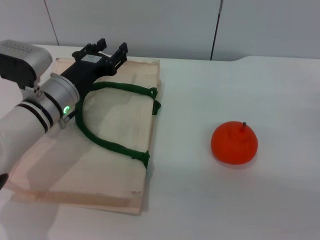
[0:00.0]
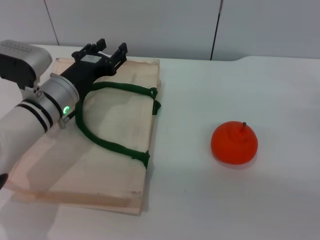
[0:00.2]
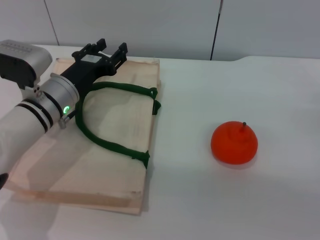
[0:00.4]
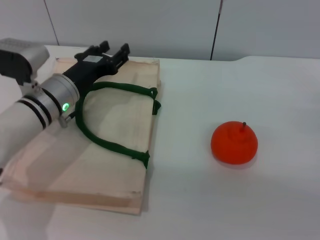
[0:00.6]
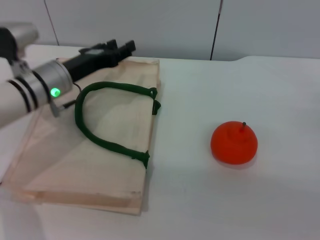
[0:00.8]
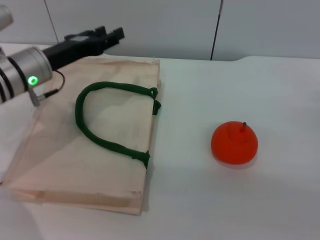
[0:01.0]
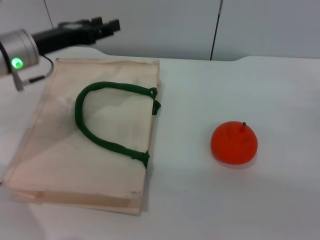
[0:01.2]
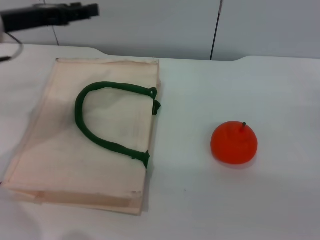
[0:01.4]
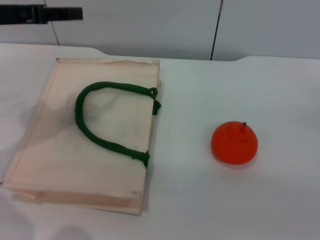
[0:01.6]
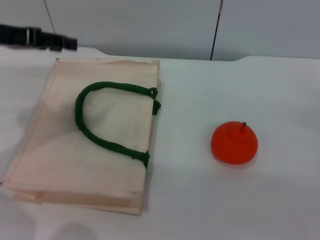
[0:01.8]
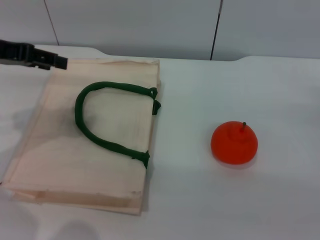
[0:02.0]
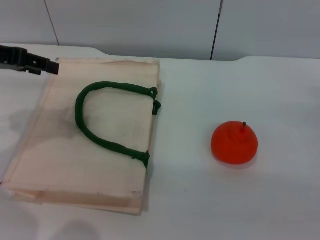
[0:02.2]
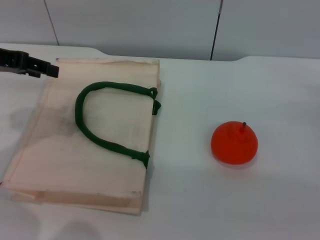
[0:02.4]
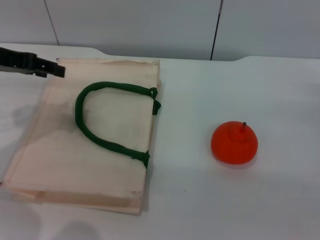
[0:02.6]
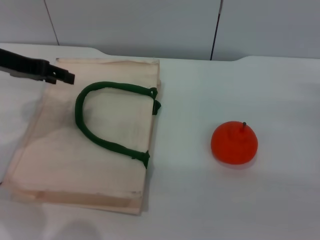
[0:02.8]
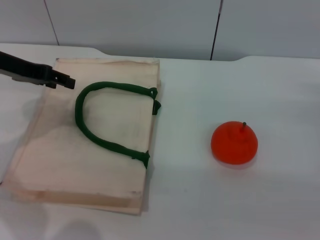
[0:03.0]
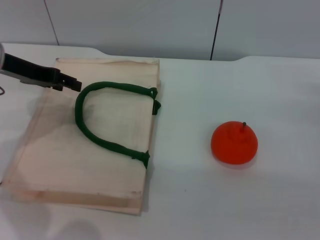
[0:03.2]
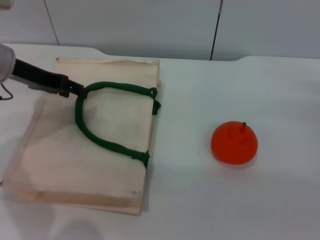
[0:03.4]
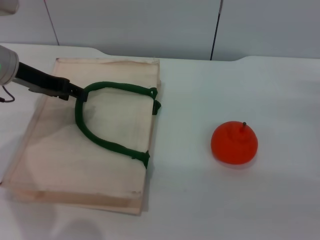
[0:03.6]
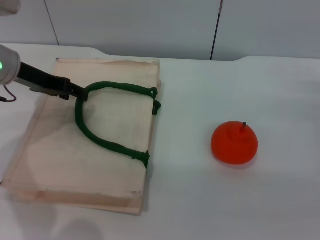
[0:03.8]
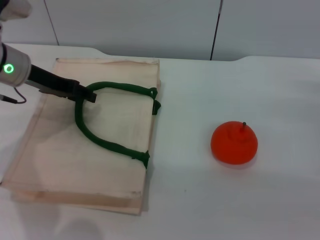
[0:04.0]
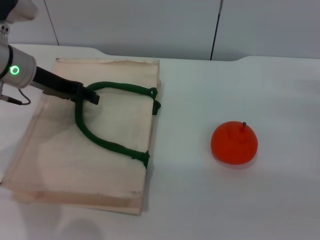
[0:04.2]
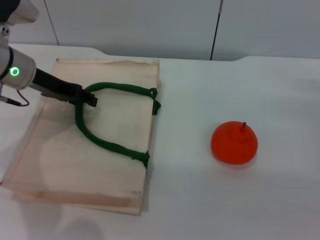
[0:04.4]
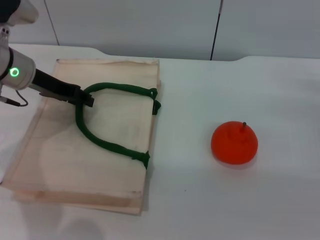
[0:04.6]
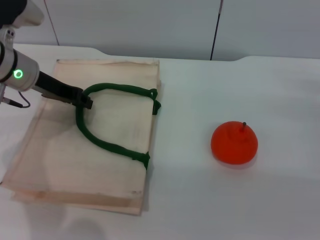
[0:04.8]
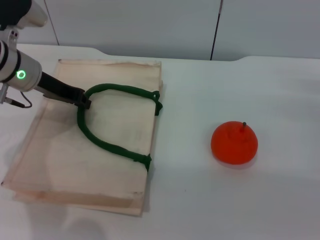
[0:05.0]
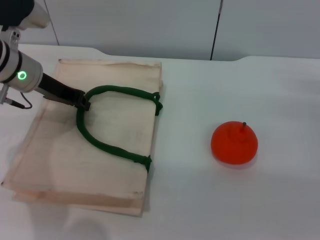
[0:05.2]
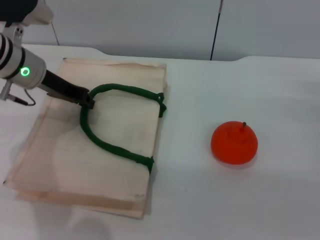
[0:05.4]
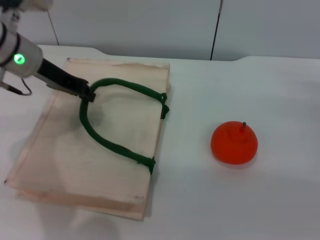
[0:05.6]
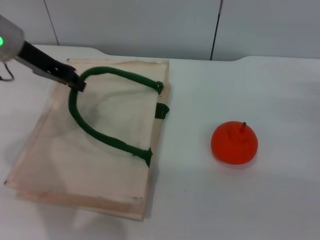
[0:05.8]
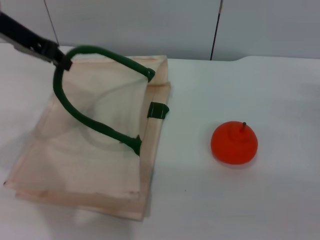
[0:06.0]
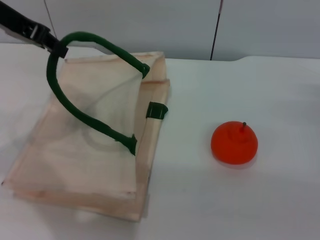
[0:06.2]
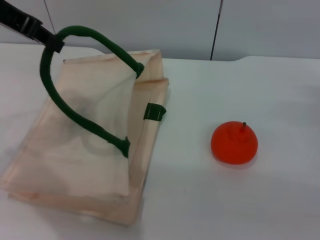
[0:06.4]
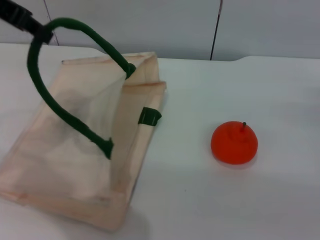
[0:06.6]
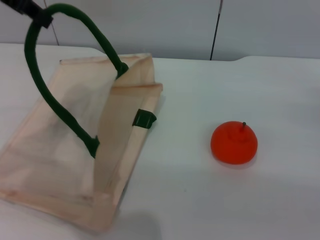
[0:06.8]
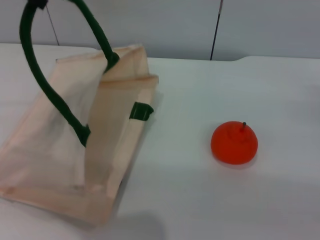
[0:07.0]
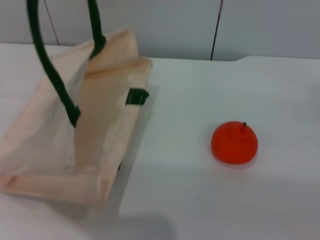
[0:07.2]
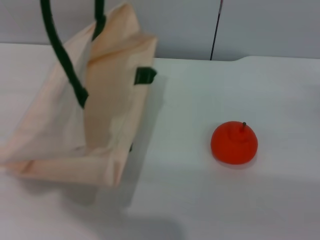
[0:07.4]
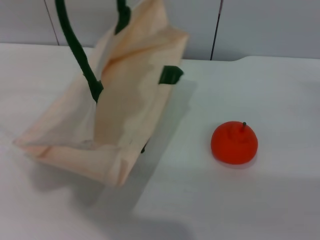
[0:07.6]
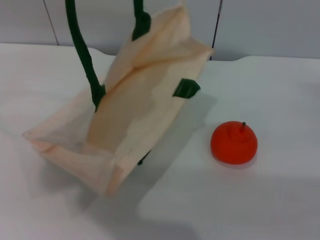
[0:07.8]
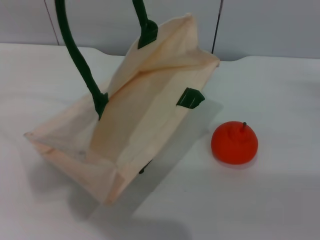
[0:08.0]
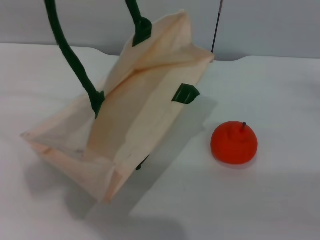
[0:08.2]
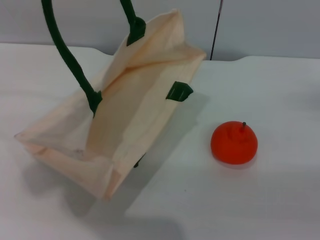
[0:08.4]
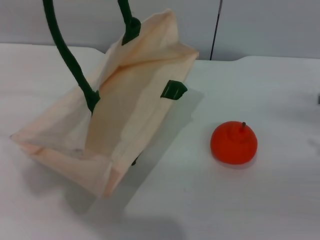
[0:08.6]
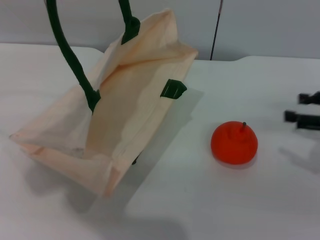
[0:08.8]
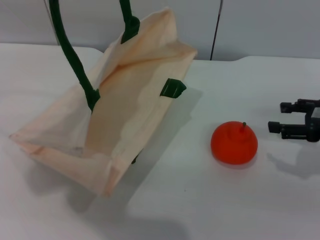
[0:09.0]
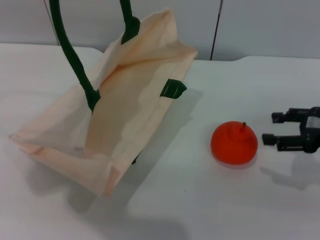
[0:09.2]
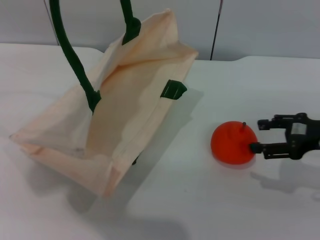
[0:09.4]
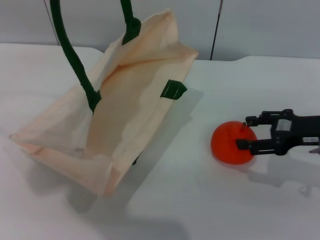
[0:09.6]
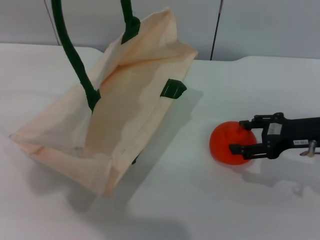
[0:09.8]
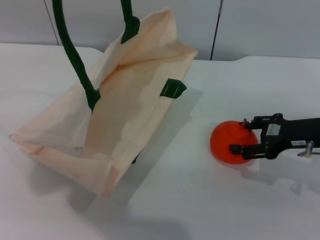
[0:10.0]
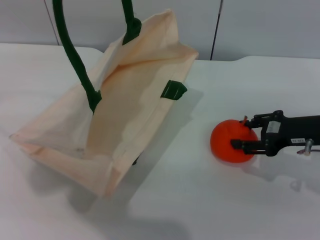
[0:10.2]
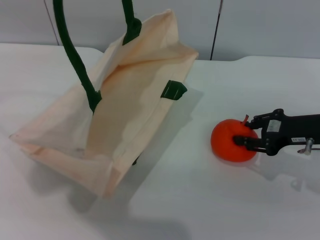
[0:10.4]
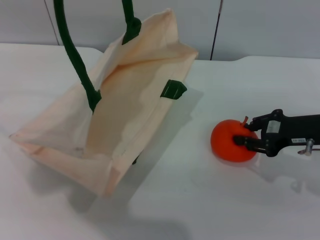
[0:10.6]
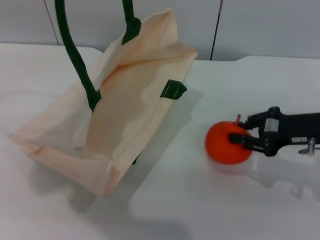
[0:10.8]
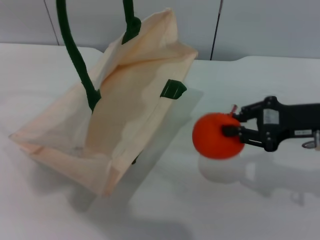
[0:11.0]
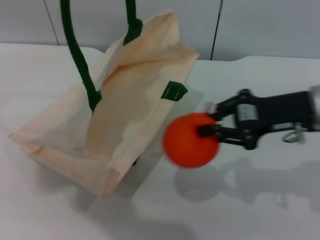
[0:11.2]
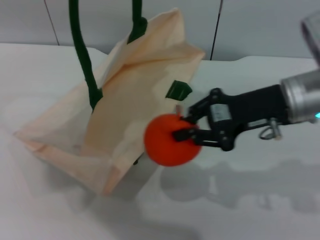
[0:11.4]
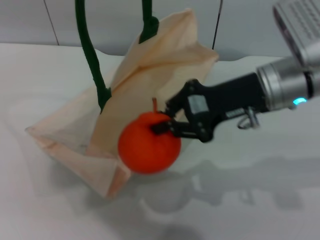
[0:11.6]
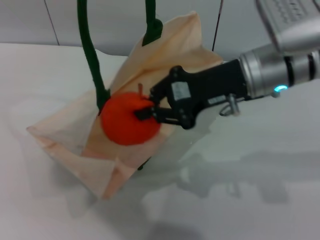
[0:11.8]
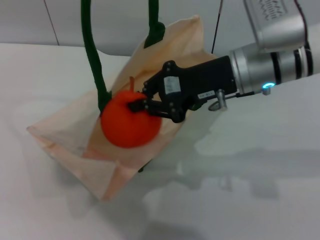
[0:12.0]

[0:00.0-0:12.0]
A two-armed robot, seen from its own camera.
Task of the whole recording: pick up the orange from the table and place it in the white handbag.
Step, 0:00.0 to 0:07.0: Lift the woven bag with the left gripper to open it.
Step, 0:07.2 to 0:11.0: Pick up the orange with the right gripper.
0:00.0 to 0:01.6: The left gripper shifts approximately 20 cm upward and to the left.
0:03.0 to 0:04.4: The left gripper shifts by roughly 5 cm.
0:04.4 to 0:06.0: The left gripper heads upward, covering approximately 10 cm, and closes its fingers.
0:06.0 to 0:07.6: The left gripper heads upward, covering some 15 cm.
0:07.6 to 0:09.0: The right gripper ends up about 5 cm from where it was.
0:09.0 to 0:10.4: The right gripper moves to the left, some 5 cm.
0:10.4 to 0:12.0: The right gripper shifts approximately 20 cm to the left and upward, and closes its fingers.

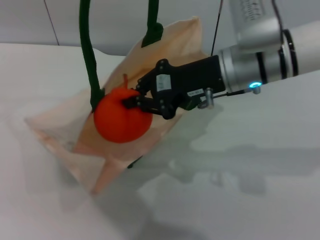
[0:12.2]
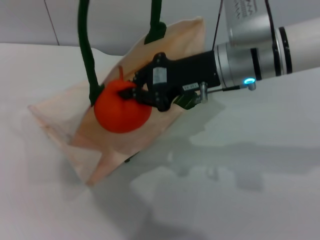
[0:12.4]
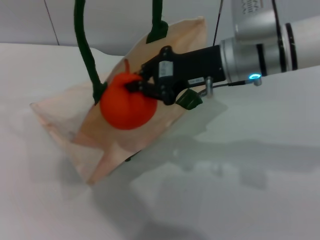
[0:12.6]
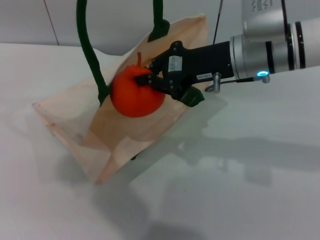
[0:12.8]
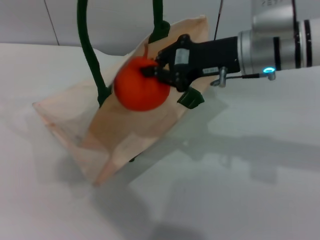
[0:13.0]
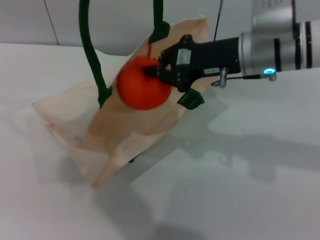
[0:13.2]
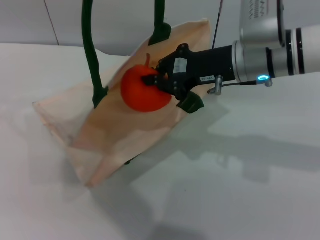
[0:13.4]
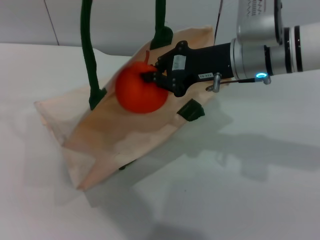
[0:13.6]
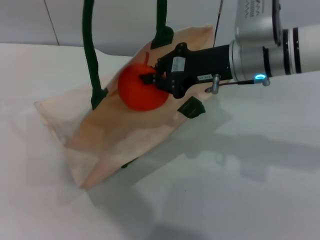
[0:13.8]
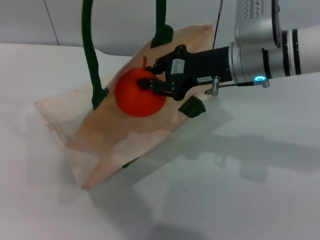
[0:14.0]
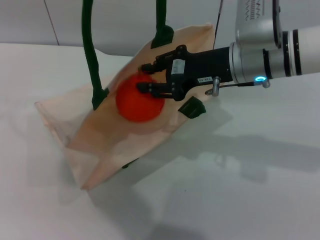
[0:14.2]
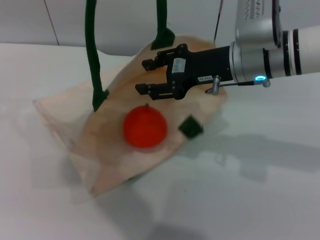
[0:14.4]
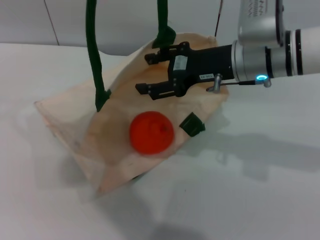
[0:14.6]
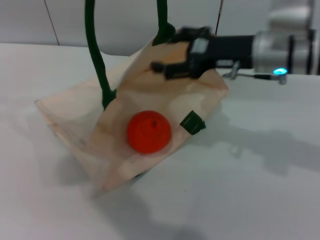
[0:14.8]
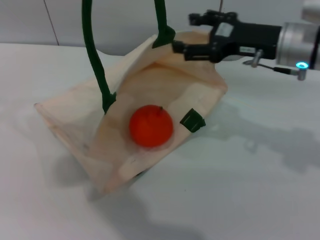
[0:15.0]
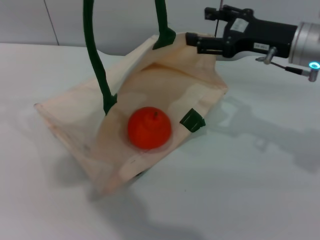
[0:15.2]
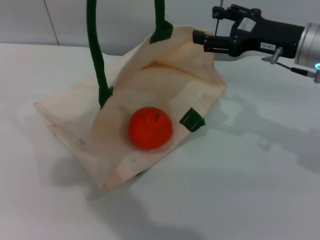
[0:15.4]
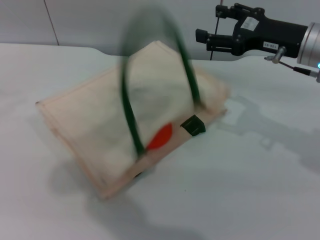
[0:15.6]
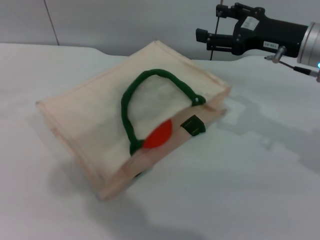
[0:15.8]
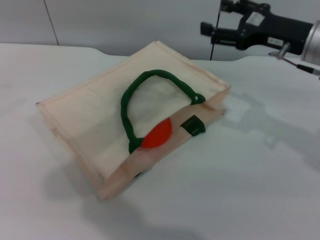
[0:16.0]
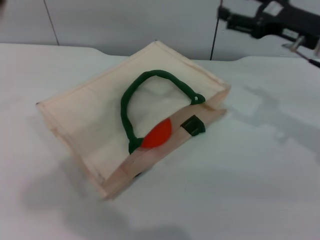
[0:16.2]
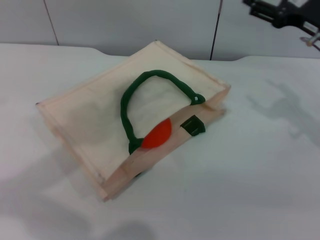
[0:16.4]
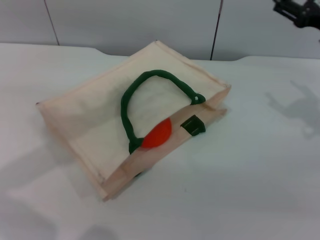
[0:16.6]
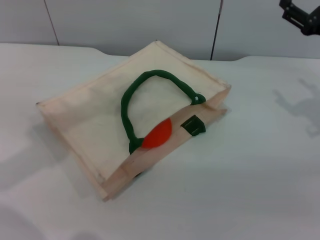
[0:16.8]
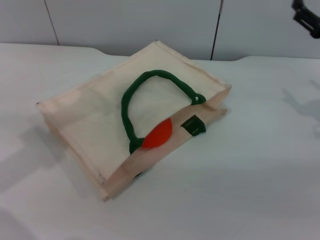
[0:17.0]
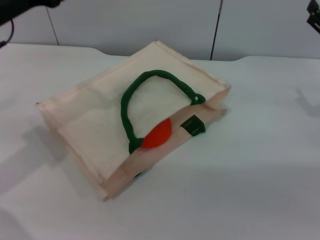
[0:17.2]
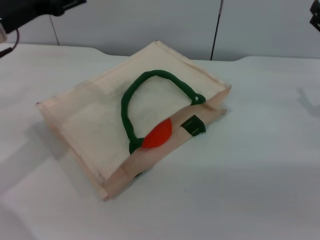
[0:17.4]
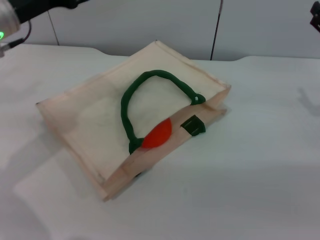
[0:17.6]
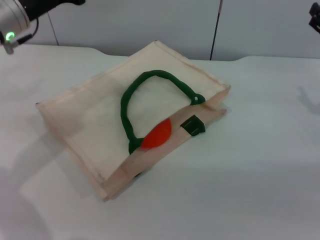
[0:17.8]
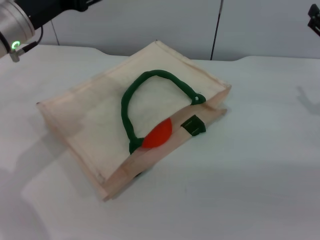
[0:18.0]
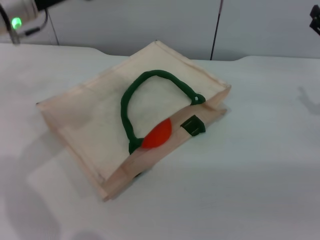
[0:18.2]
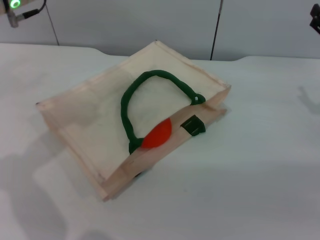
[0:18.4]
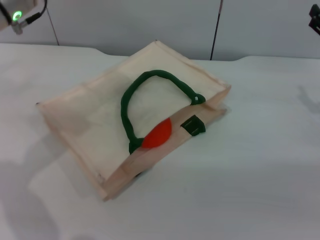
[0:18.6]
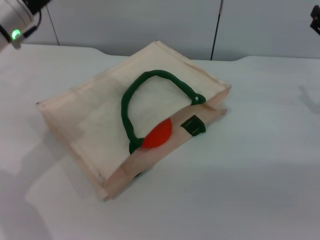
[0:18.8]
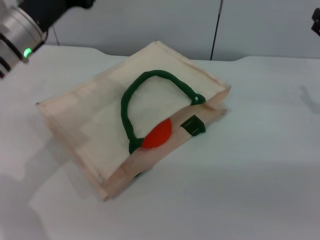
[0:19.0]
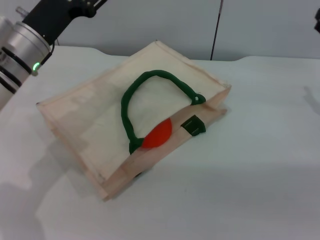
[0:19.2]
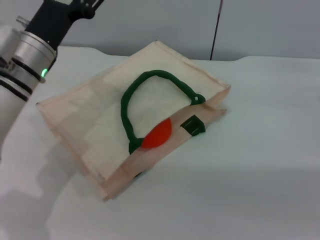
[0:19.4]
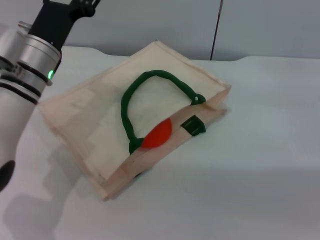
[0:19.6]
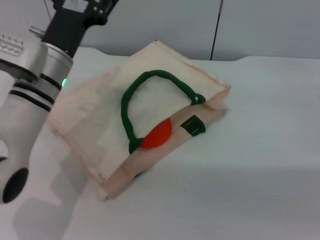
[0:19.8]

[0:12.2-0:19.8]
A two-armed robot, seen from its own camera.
Task of the whole recording: pick up the orange from the table and place it in the white handbag.
Step, 0:12.2 to 0:15.0: Place the orange into the woven bag with the right gripper.
Step, 0:15.2 to 0:15.8: Lower the woven bag with the left gripper to close it.
0:12.2 to 0:13.8: The grippers move only a little.
0:13.8 to 0:15.2: The right gripper shifts about 10 cm to the right, and opens its fingers.
0:15.2 to 0:16.8: The right gripper heads to the right, covering about 10 cm. Meanwhile the left gripper shifts about 20 cm downward and to the left, and opens its fingers.
0:16.8 to 0:18.2: The left gripper is displaced downward and forward by approximately 10 cm.
0:18.2 to 0:19.8: The left gripper travels downward, to the right and backward by some 10 cm.
